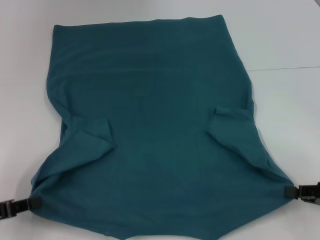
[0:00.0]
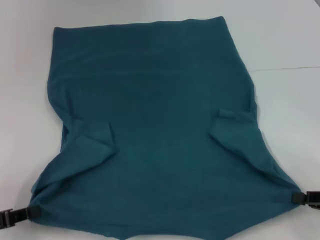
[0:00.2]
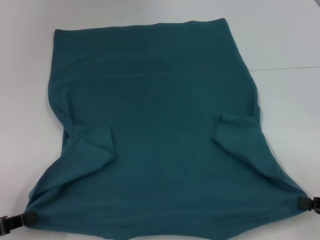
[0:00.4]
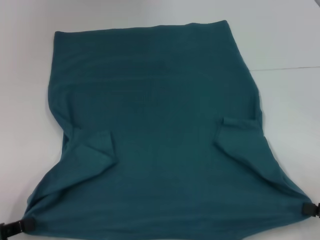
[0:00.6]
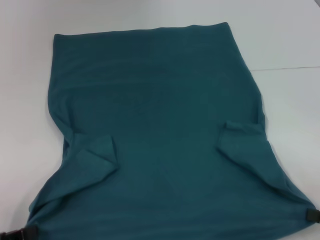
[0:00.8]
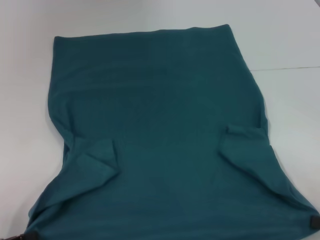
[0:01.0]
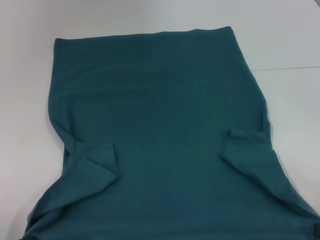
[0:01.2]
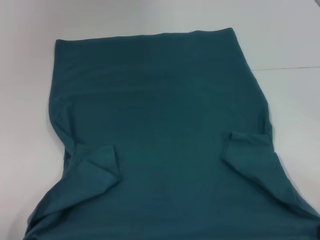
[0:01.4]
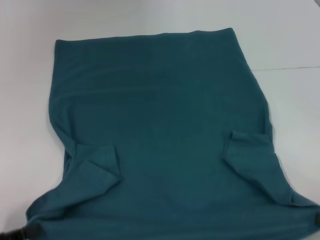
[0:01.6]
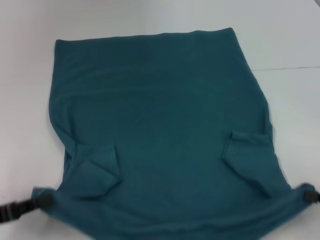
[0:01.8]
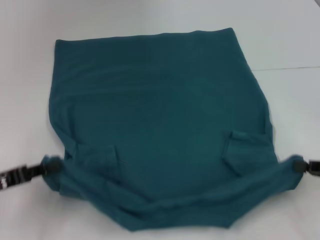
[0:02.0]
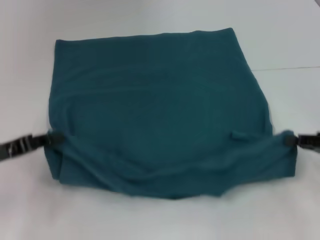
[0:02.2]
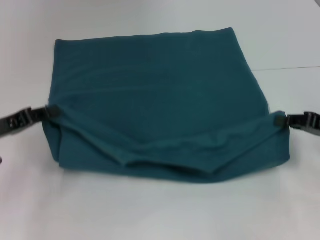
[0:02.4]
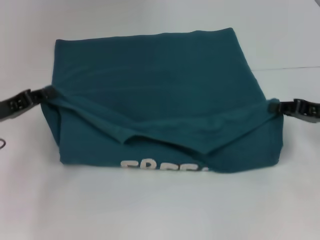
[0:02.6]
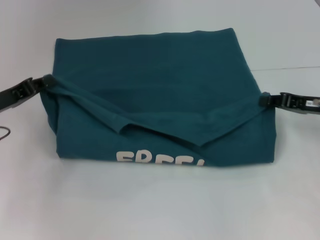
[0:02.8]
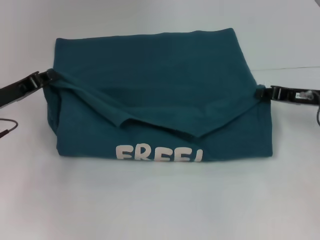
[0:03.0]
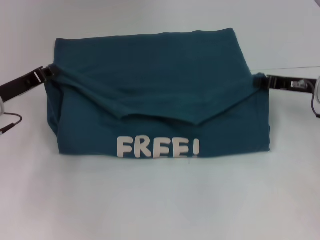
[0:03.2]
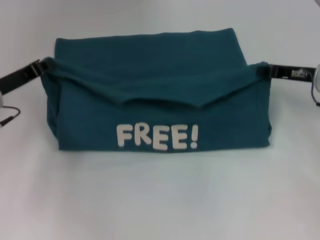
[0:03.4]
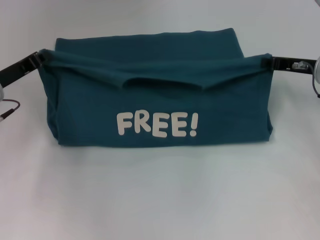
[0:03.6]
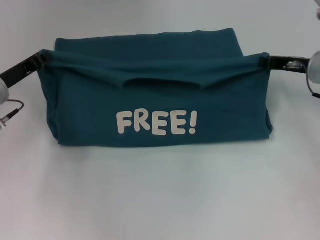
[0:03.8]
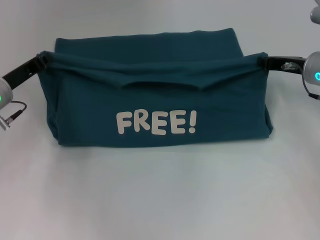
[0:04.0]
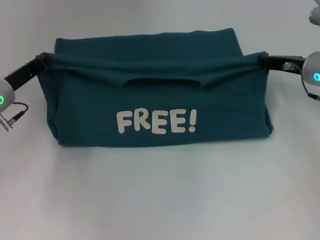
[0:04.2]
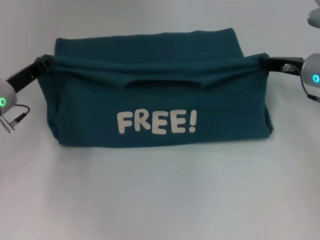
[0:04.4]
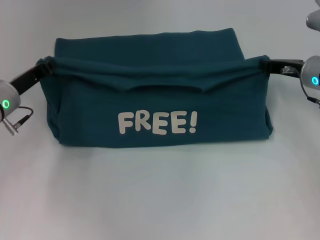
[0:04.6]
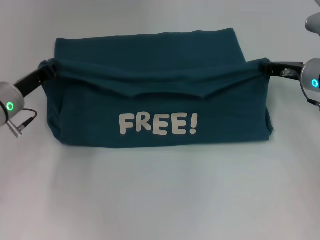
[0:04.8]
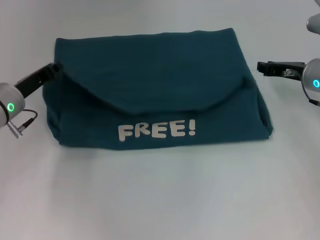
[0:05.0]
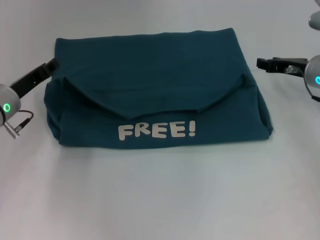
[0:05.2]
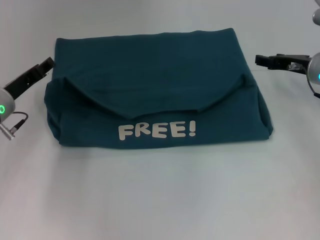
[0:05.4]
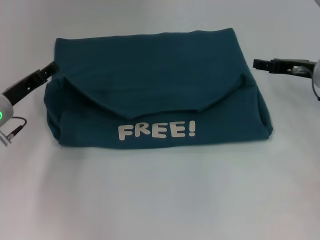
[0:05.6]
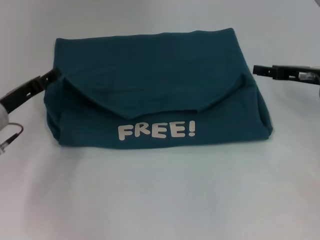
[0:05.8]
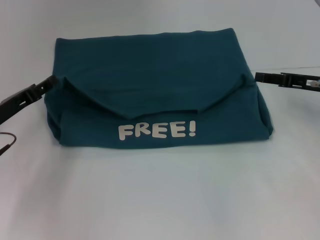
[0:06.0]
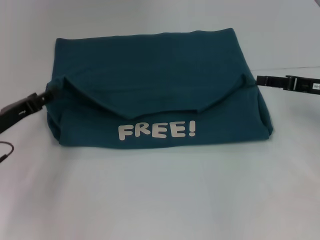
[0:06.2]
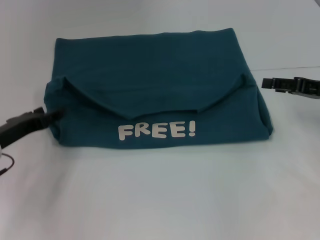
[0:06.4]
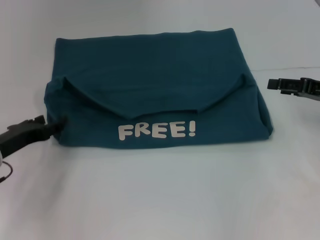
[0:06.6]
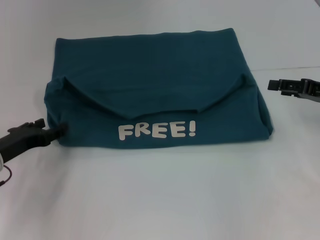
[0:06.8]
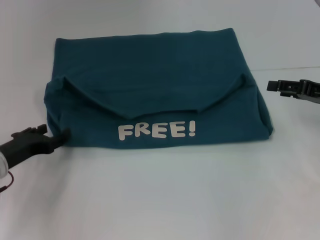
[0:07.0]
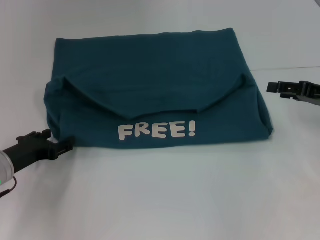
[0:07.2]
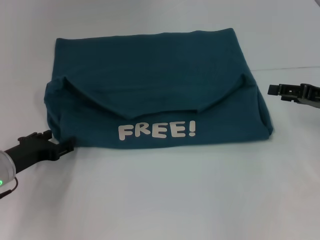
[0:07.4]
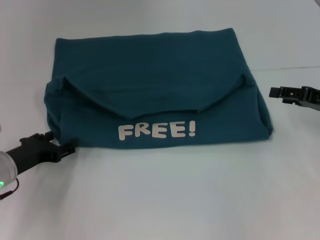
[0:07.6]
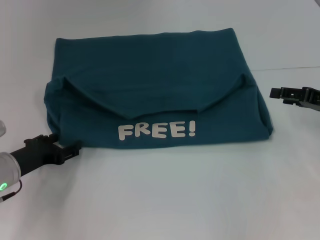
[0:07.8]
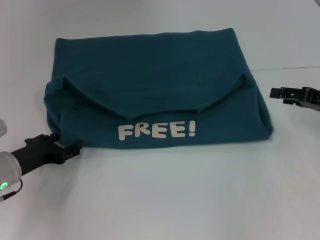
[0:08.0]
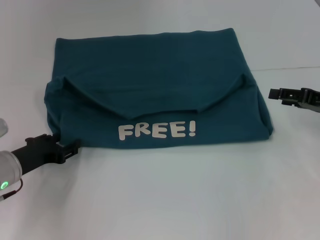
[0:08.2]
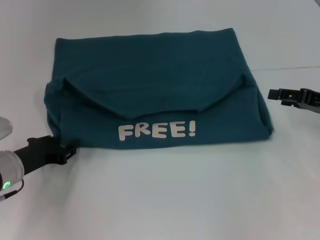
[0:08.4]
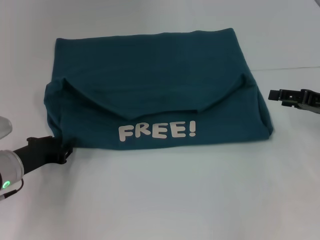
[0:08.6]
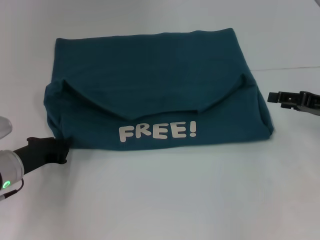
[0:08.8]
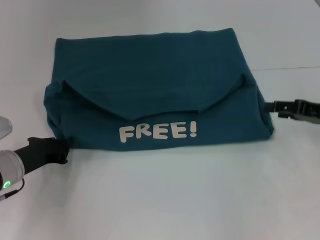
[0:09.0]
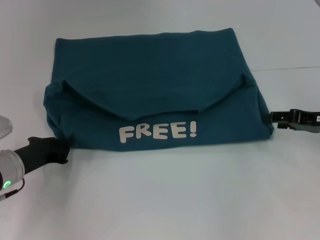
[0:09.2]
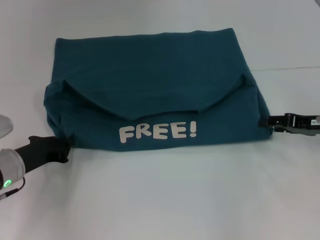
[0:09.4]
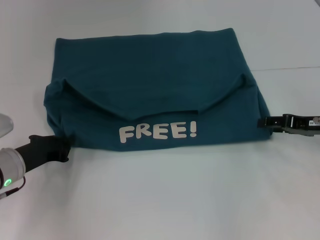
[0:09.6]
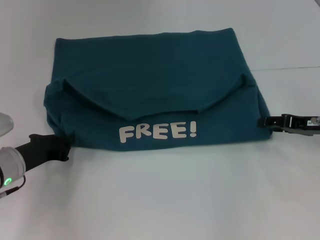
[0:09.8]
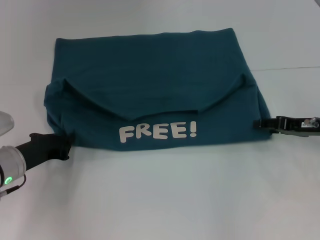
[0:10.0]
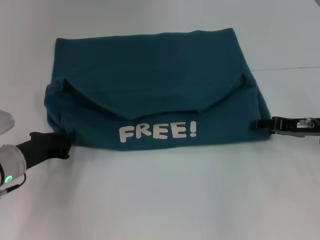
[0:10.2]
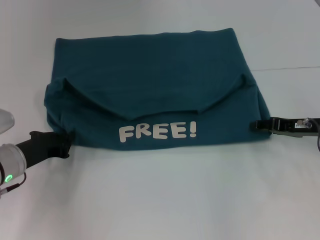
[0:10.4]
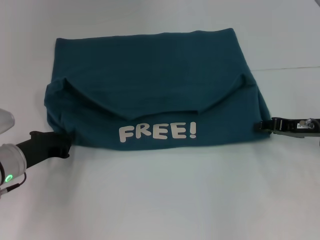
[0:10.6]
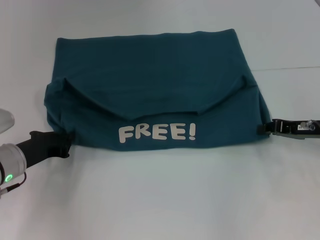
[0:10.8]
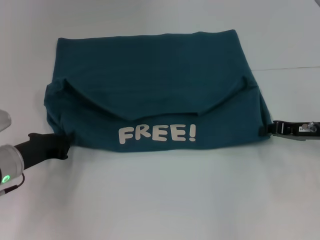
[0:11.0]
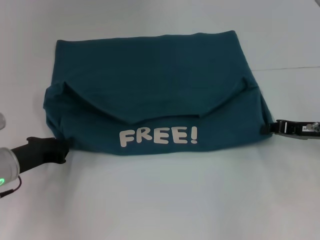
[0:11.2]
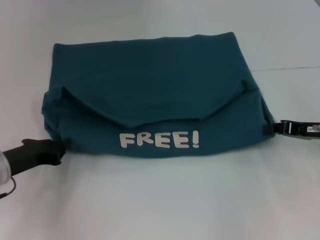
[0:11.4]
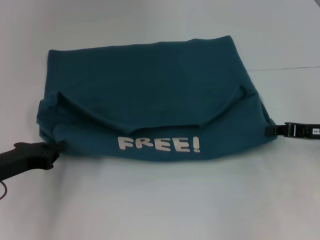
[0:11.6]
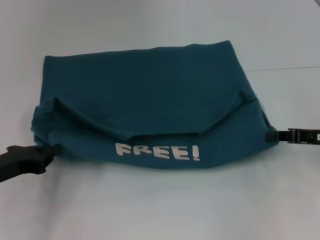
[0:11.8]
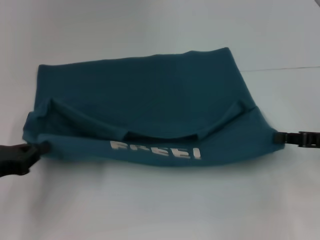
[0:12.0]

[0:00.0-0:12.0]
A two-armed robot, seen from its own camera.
Step, 0.0 to 5.4 s: Fold the clothes to the left.
Step, 0.0 to 5.4 s: Fold the clothes to the right.
0.0 to 1.6 s: Both grippers move backward, roughly 5 cm.
1.6 to 3.0 s: Both grippers travel together forward, some 20 cm.
3.0 to 4.4 s: The right gripper heads forward, covering roughly 5 cm.
4.4 to 6.0 s: The right gripper travels backward by about 5 cm, and opens, while the left gripper ends up some 5 cm from where it was, and opens up.
6.0 to 7.6 s: The left gripper moves roughly 5 cm.
7.6 to 9.0 s: The left gripper closes its fingers.
9.0 to 10.4 s: The grippers move only a little.
10.4 to 12.0 s: The right gripper travels backward by approximately 5 cm, and closes its fingers; the left gripper goes roughly 10 cm backward, to the left and upward.

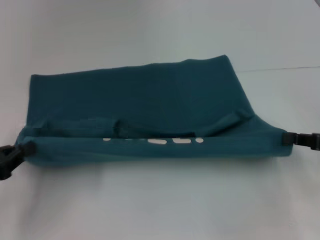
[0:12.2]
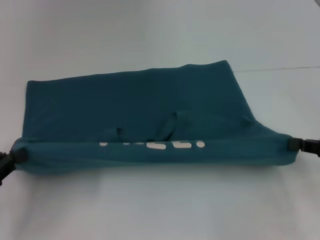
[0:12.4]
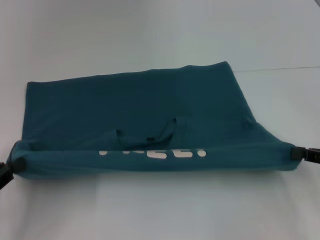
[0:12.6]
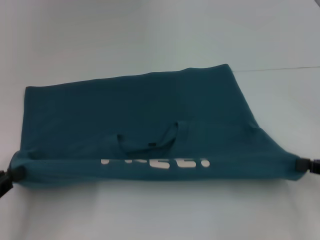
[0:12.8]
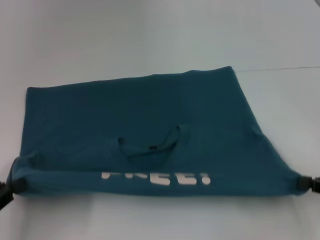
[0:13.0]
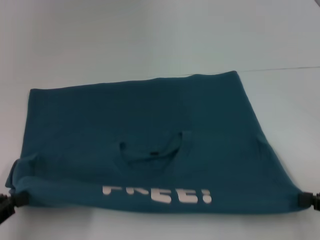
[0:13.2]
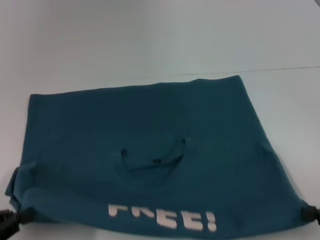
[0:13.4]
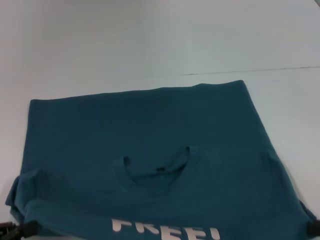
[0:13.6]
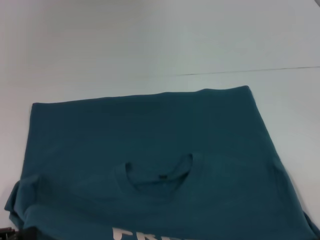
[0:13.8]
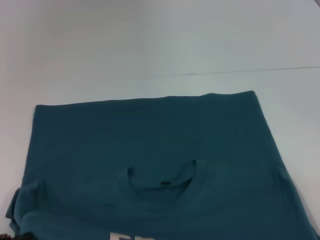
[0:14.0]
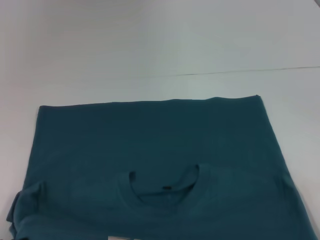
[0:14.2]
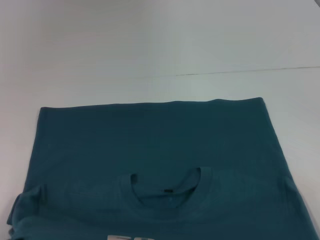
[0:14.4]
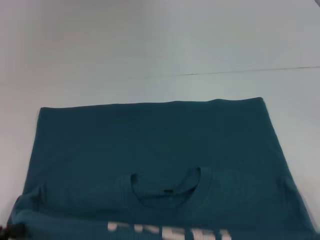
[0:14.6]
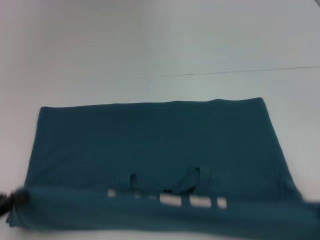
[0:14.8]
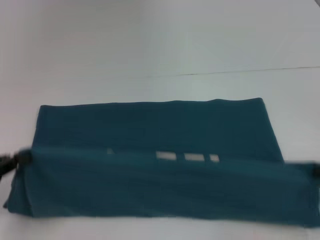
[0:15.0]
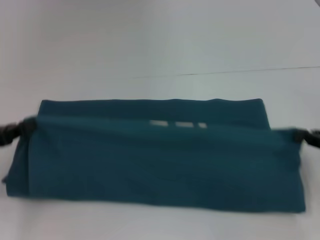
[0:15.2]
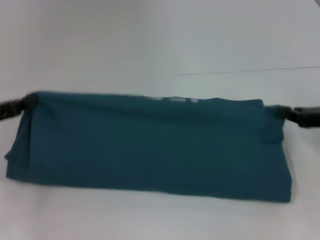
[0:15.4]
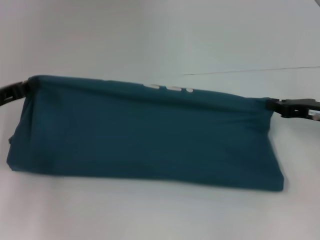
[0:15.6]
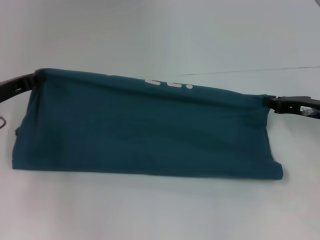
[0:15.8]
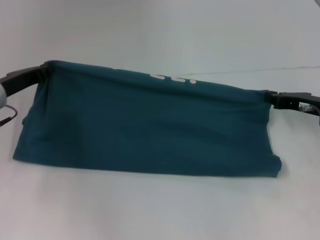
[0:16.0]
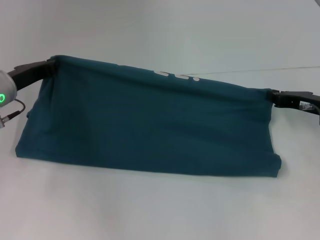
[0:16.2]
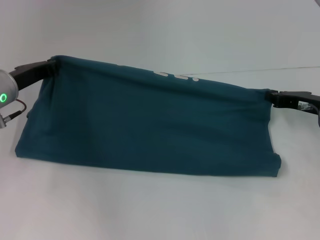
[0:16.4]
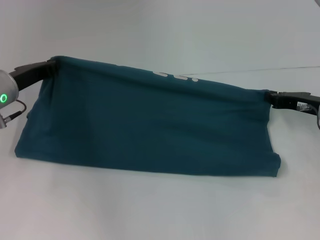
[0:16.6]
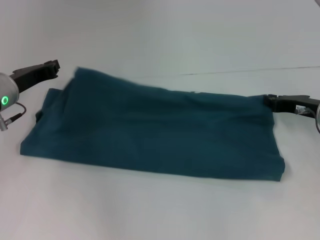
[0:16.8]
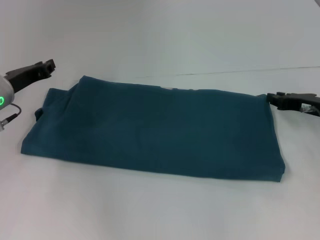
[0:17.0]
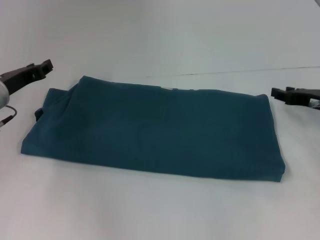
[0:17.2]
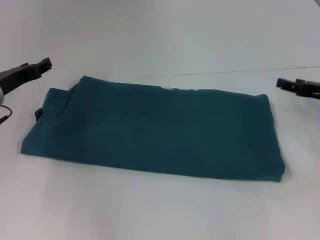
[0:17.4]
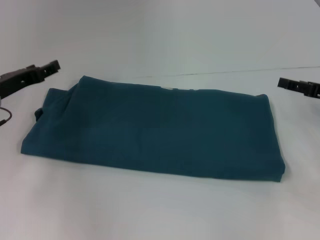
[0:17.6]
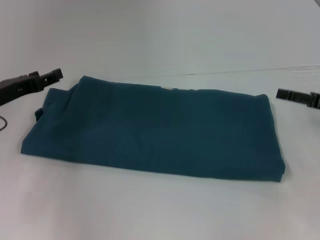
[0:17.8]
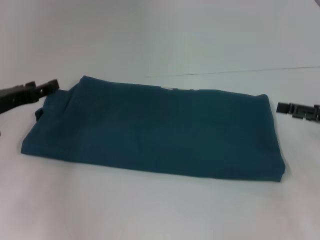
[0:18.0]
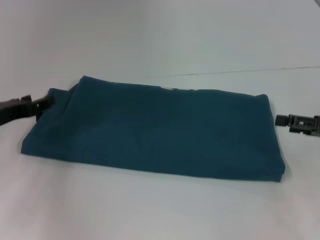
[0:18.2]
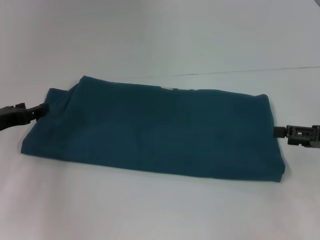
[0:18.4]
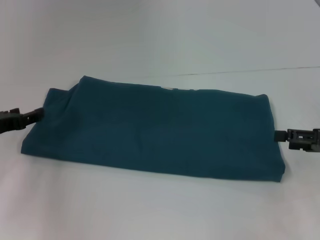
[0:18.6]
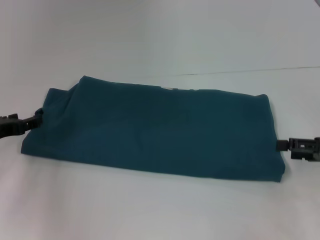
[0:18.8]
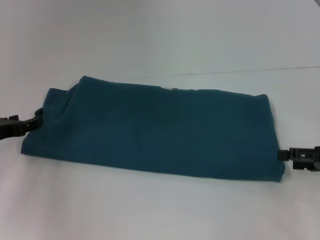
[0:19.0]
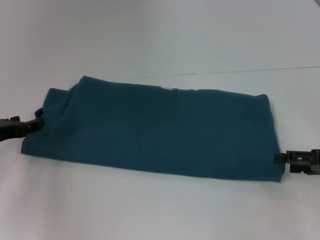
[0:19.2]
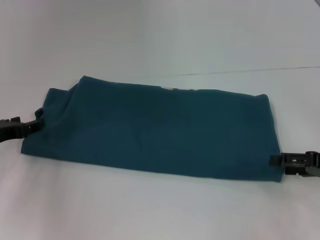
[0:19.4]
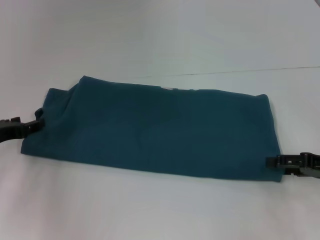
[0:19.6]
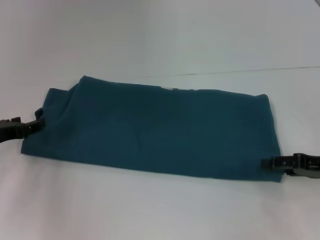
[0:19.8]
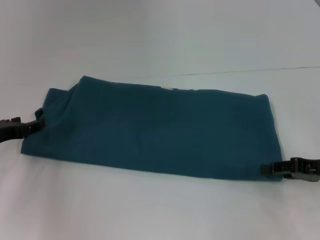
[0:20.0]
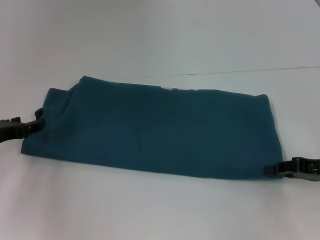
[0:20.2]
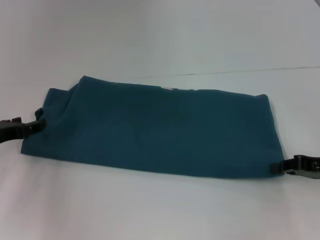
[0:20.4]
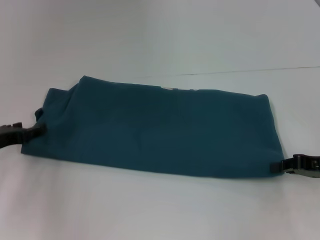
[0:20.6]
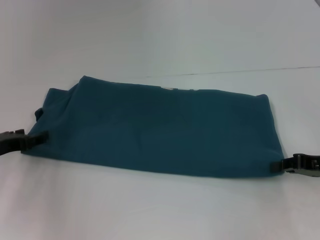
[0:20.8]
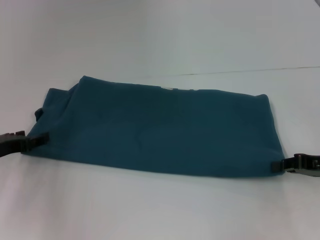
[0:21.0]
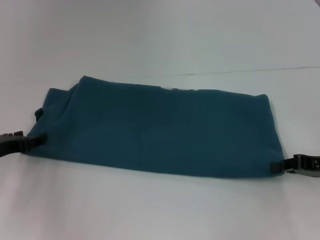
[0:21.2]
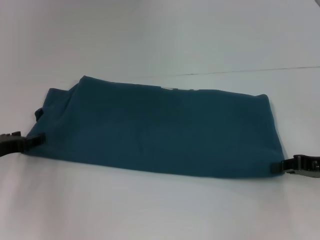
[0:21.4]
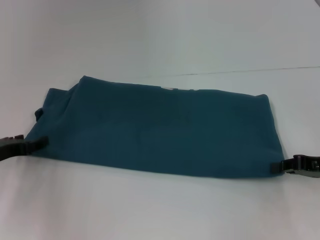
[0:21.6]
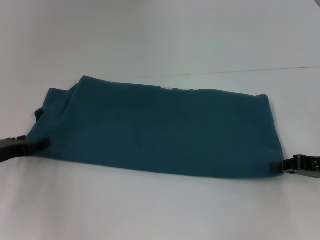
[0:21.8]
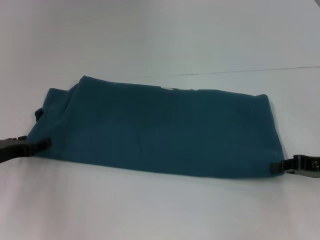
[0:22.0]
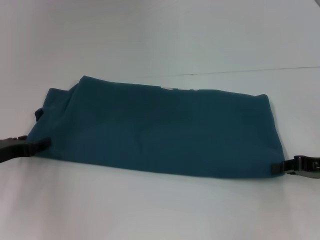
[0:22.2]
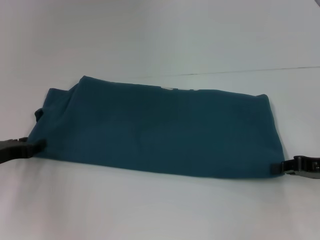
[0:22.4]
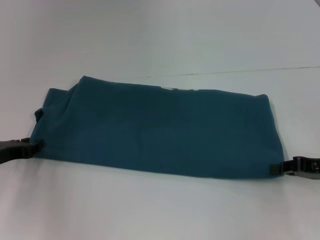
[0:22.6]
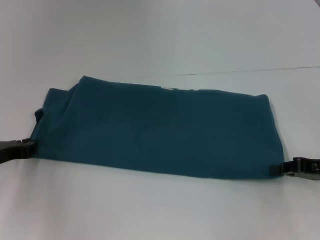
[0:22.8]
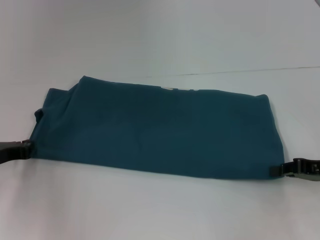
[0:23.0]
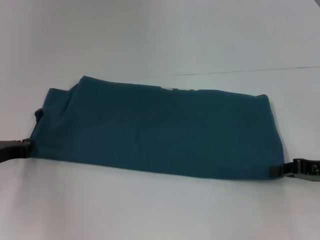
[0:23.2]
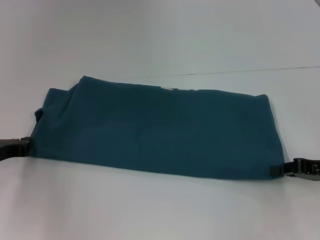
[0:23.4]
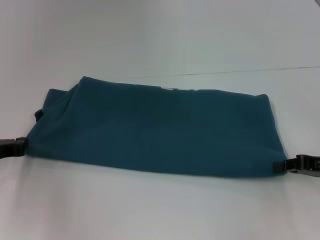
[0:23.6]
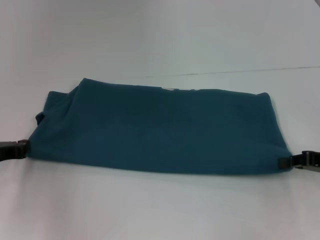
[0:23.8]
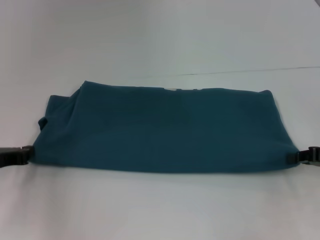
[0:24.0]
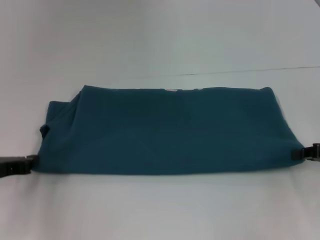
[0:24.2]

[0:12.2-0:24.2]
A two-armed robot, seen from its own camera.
Step, 12.2 to 14.2 s: Pull the clothes with your left hand.
Step, 12.2 to 14.2 s: Pull the clothes with your right hand.
Step, 14.4 to 17.0 s: Fold the clothes to the right.
12.2 to 13.8 s: The right gripper shifts approximately 15 cm backward, while the left gripper goes some 10 cm backward.
13.8 to 15.2 s: Both grippers travel together forward, about 15 cm.
15.2 to 16.6 s: The right gripper goes roughly 10 cm forward and to the left. Meanwhile the left gripper goes about 15 cm forward and to the right.
16.6 to 18.2 s: The left gripper travels backward by about 5 cm, and opens. Meanwhile the right gripper is displaced backward and to the right by about 10 cm, and opens its fingers.
18.2 to 19.8 s: There are only small adjustments of the grippers.
19.8 to 21.2 s: The right gripper closes up.
21.2 to 22.6 s: Neither gripper changes place.
22.6 to 24.2 s: The left gripper closes its fingers.
